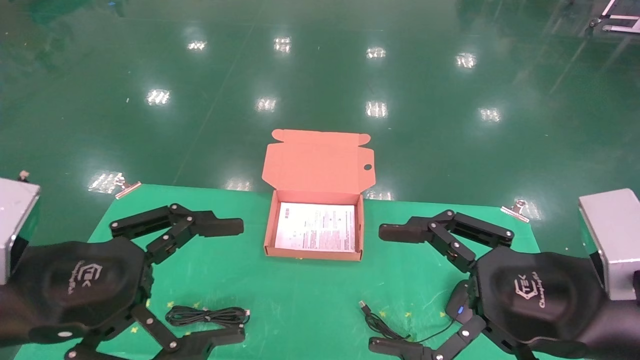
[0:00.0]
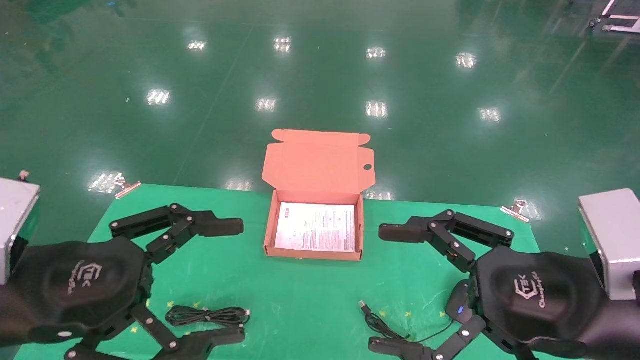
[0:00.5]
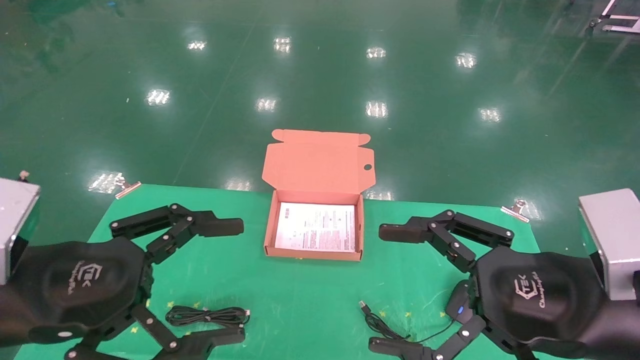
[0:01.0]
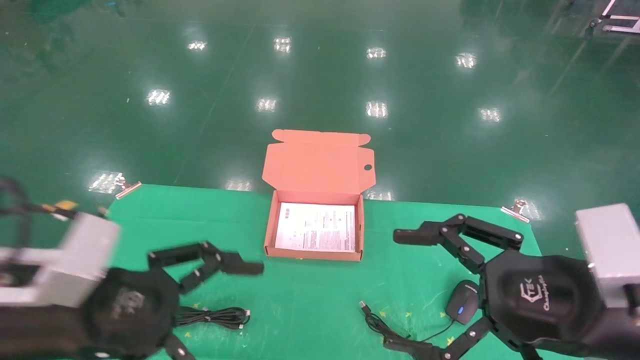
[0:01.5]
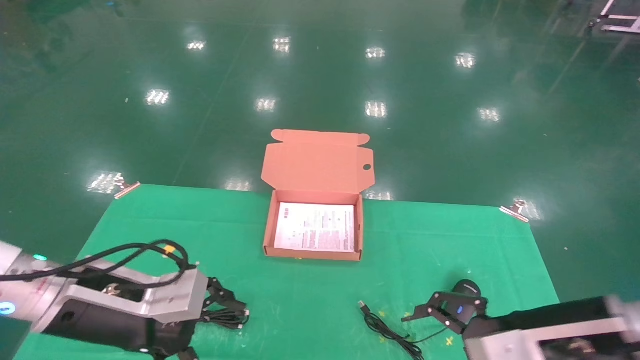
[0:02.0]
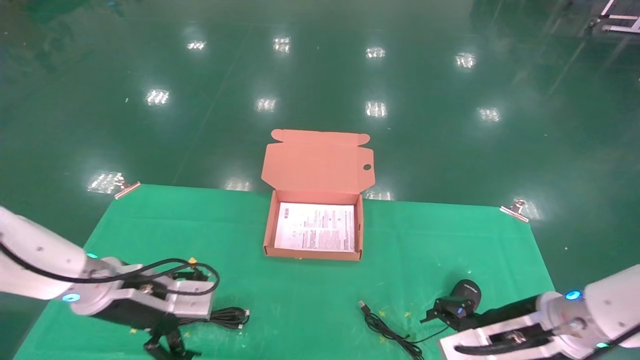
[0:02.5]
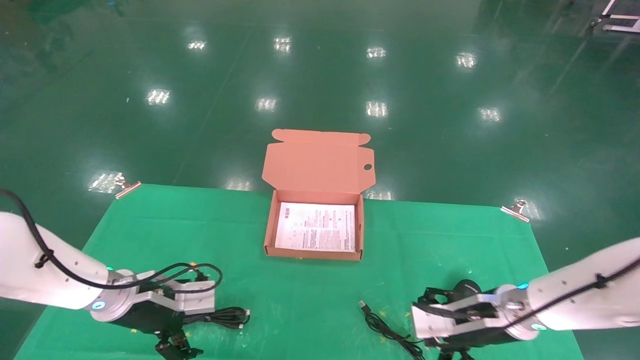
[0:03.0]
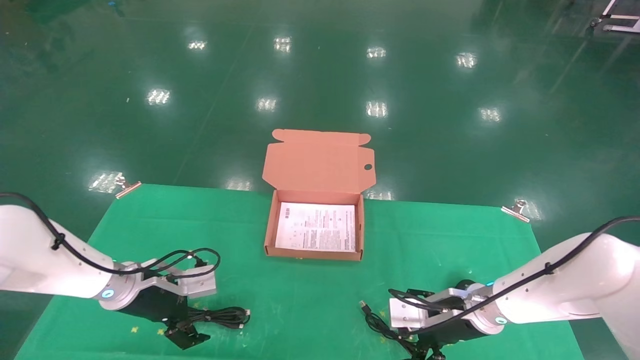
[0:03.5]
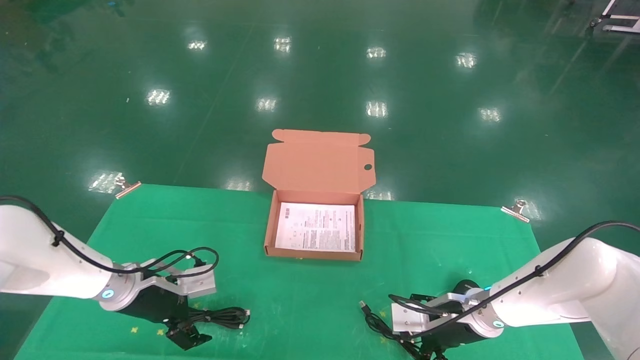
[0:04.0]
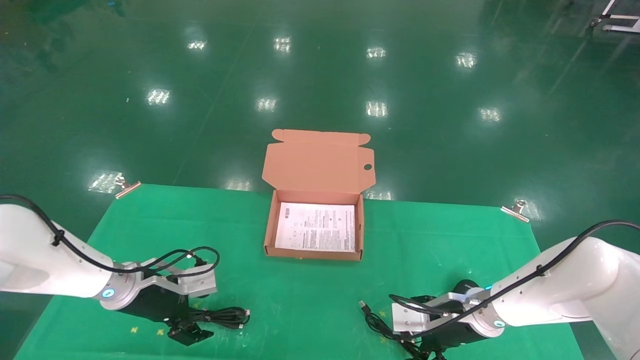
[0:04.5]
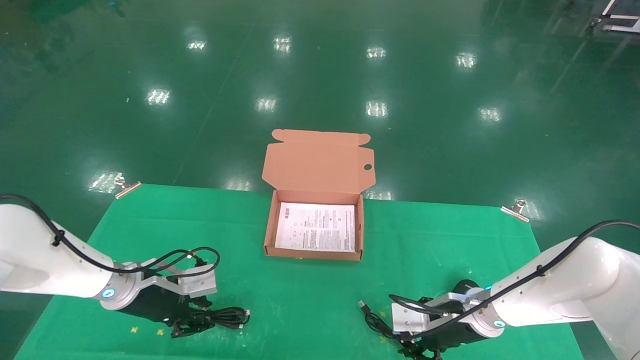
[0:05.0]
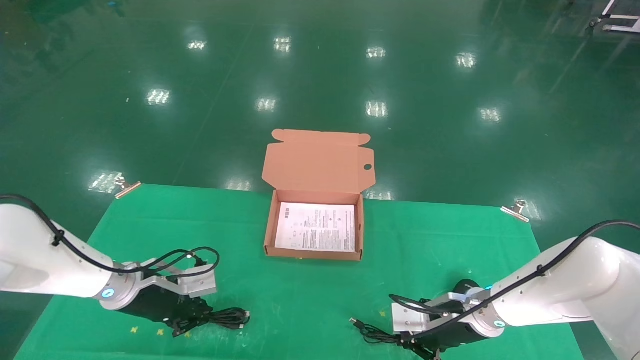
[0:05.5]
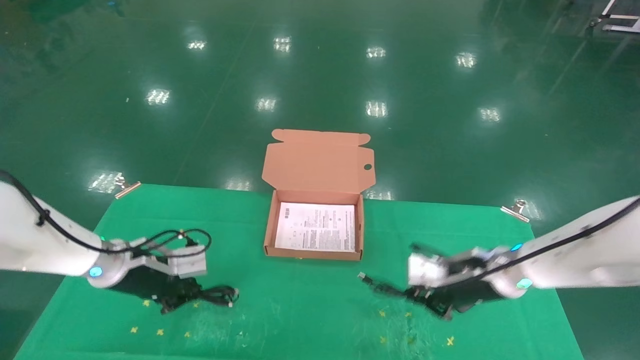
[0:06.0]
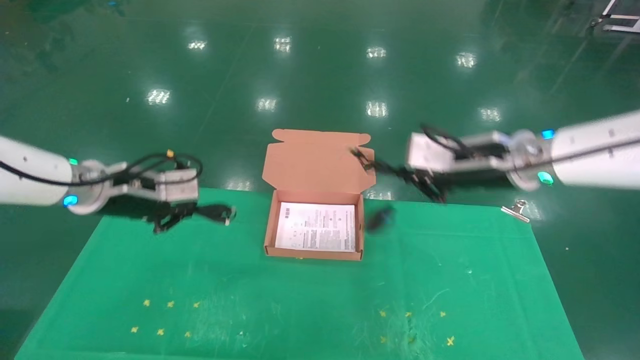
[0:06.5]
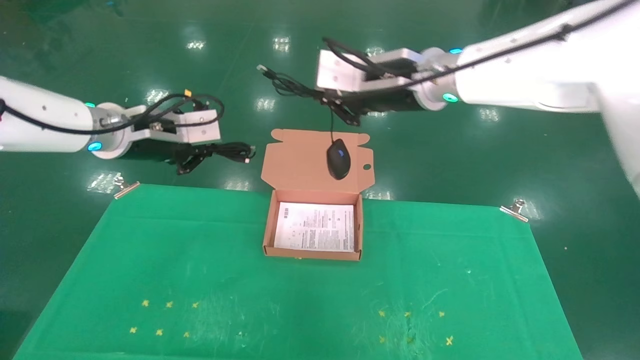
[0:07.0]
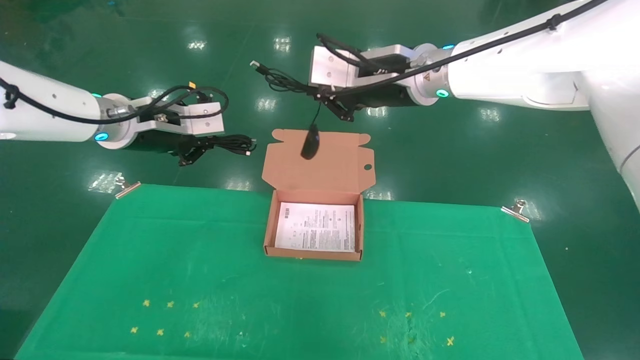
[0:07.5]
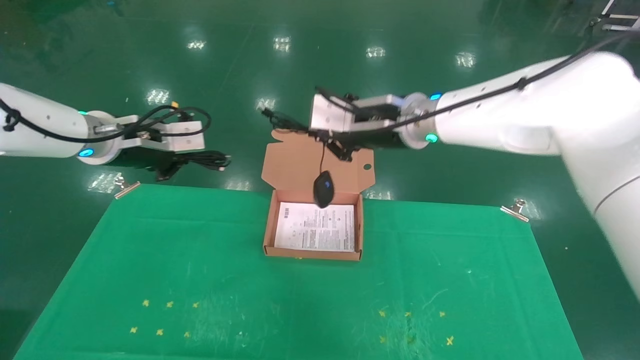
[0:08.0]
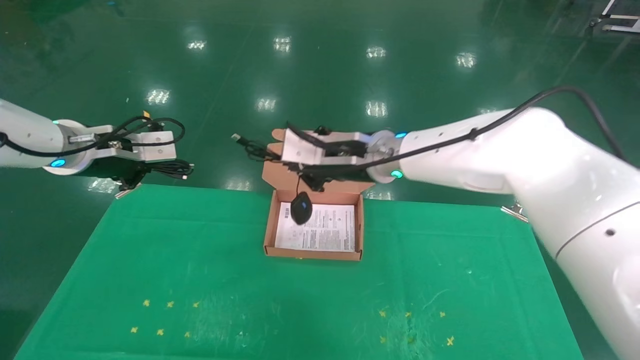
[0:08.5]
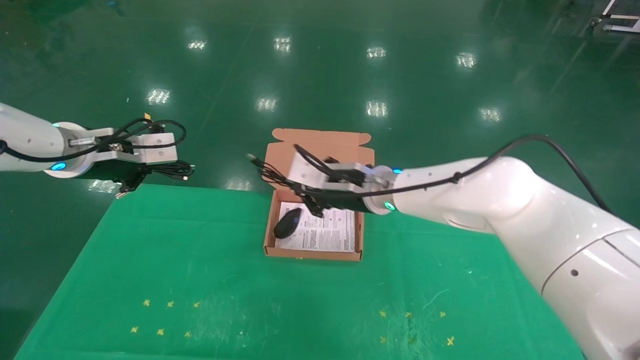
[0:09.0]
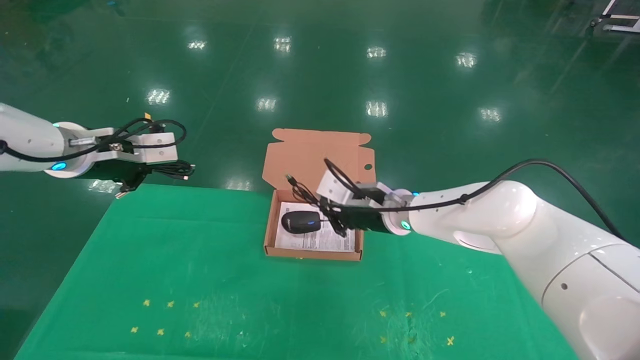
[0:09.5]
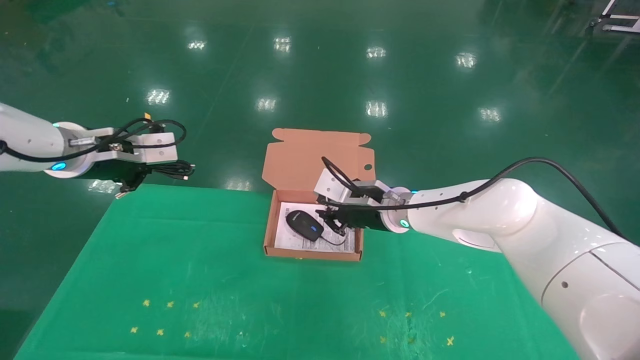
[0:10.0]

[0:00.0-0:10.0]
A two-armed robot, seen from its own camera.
Task of the whole recording: grasp data cable left put into box grasp mouse right put into box.
Step, 0:01.5 to 0:06.0: Grab and pick up both the mouse and power cord from the accessory packaging area at the same time.
0:00.0 to 0:02.0: The right gripper shifts some 5 cm downward, while the left gripper goes approximately 10 cm forward and downward.
0:02.0 to 0:04.0: The grippers both shift forward and downward by roughly 20 cm.
0:04.0 to 0:06.0: The left gripper is displaced upward by some 5 cm, and closes up. The right gripper goes some 10 cm upward, and closes.
0:06.0 to 0:08.0: The left gripper travels upward by about 20 cm. The right gripper goes roughly 25 cm upward and to the left.
0:08.0 to 0:10.0: The right gripper shifts about 15 cm downward.

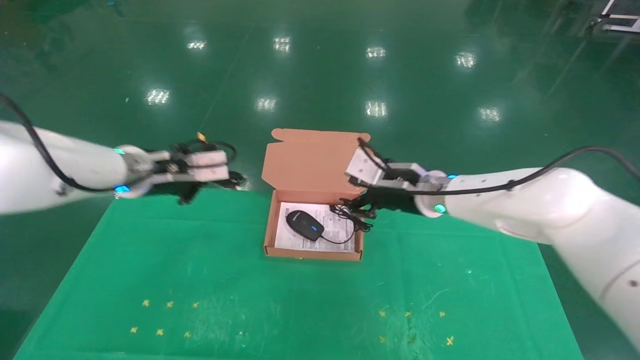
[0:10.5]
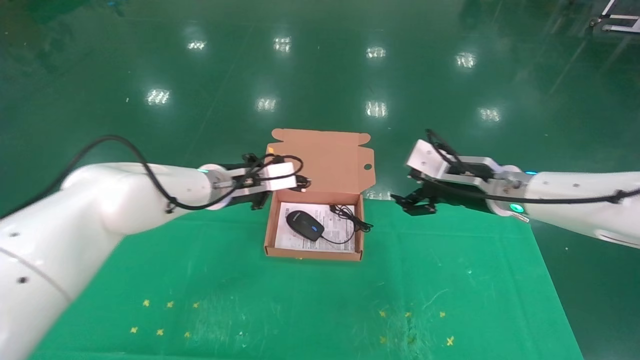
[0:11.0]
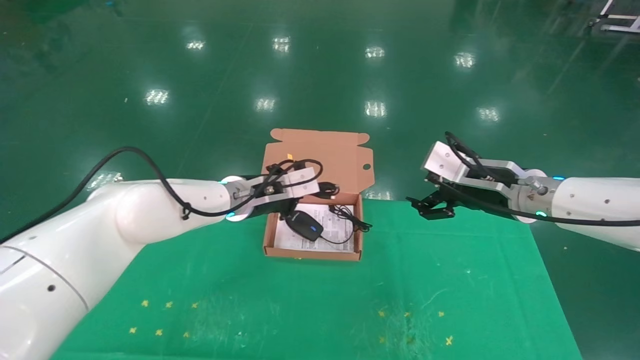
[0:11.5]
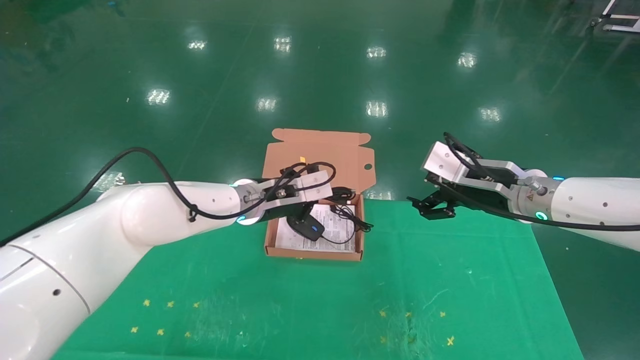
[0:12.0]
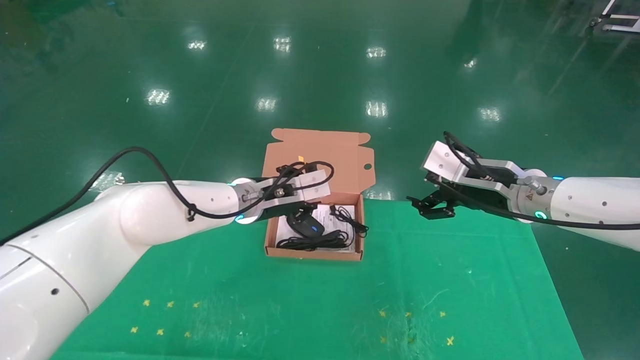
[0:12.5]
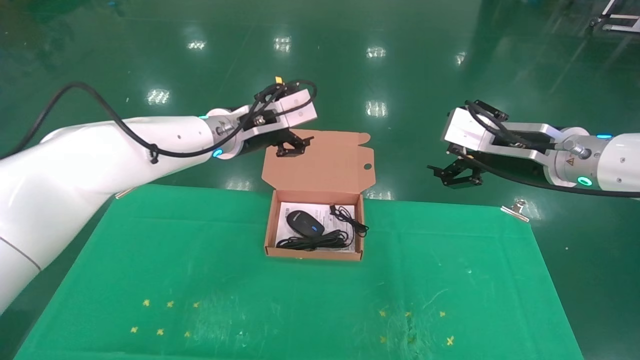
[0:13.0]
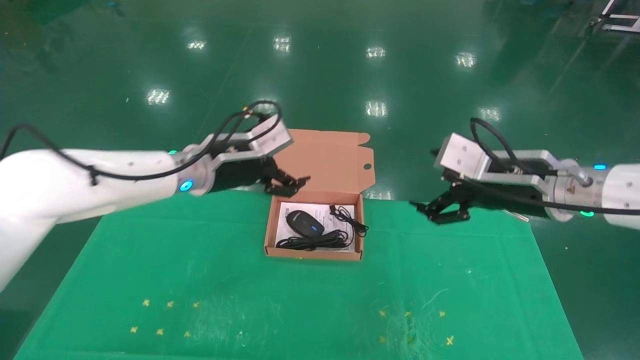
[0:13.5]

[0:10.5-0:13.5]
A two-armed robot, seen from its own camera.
Task of the whole recording: grasp data cable left put into box grasp mouse right put into box.
Step, 0:10.5 to 0:12.5: Place the mouse and power cord into the box.
0:10.5 to 0:12.0: The right gripper shifts some 15 cm to the right and backward, and opens, while the left gripper is displaced to the right and downward by about 15 cm.
0:12.0 to 0:13.5: The left gripper goes roughly 10 cm upward and to the left, and opens. The right gripper shifts by roughly 5 cm.
